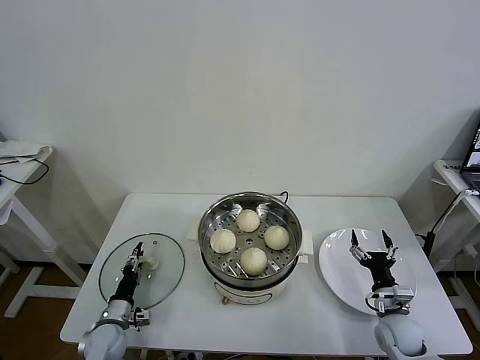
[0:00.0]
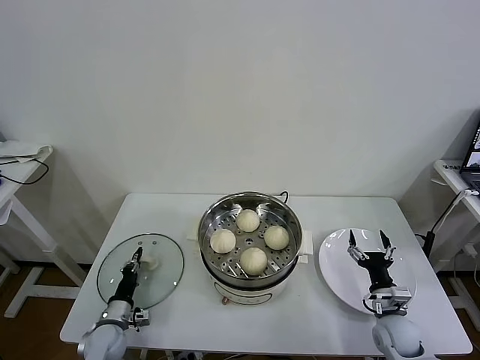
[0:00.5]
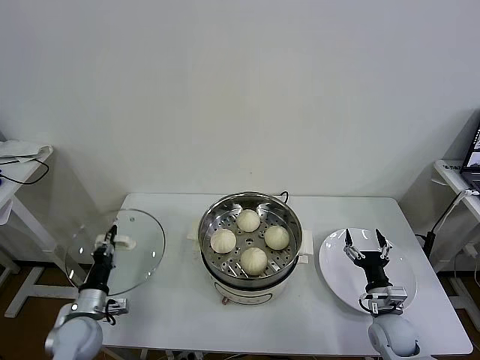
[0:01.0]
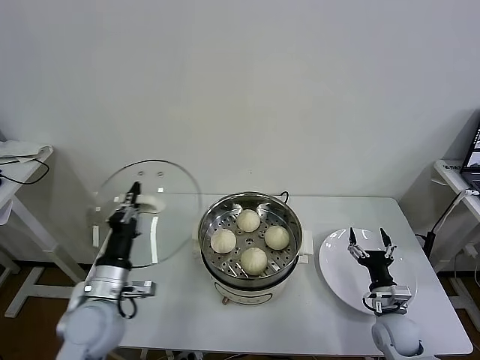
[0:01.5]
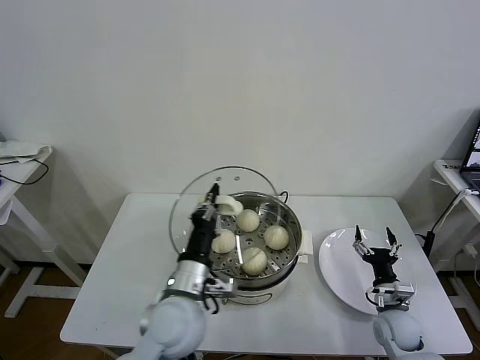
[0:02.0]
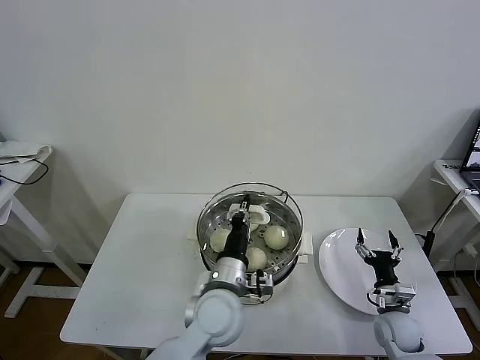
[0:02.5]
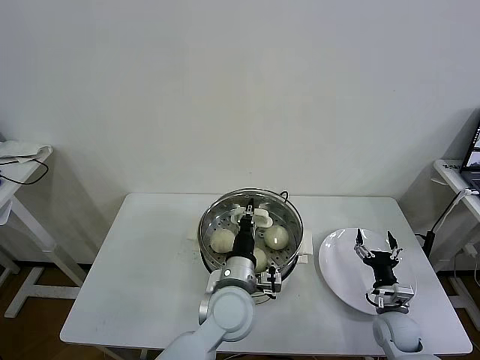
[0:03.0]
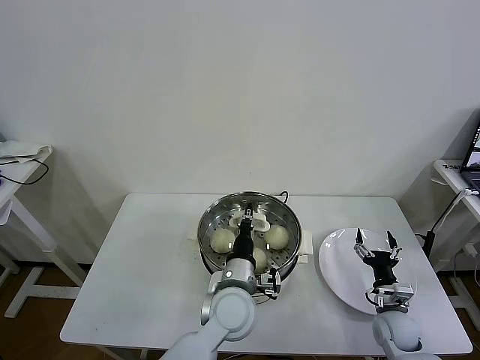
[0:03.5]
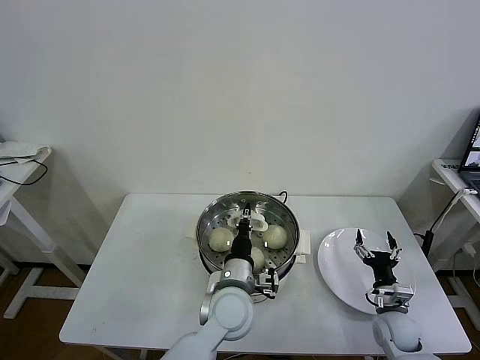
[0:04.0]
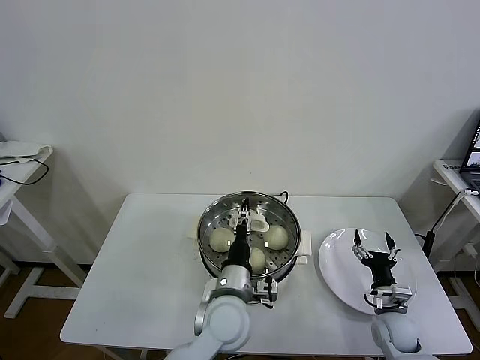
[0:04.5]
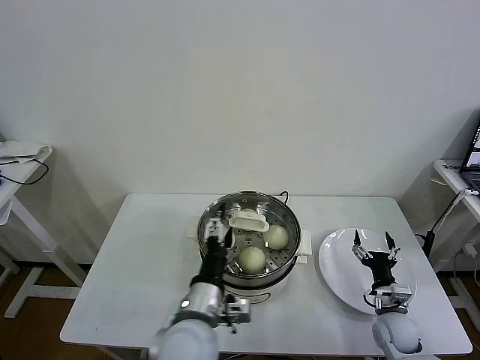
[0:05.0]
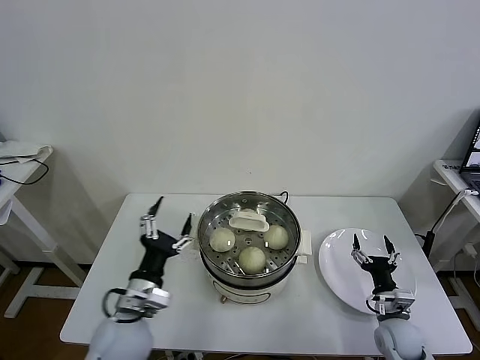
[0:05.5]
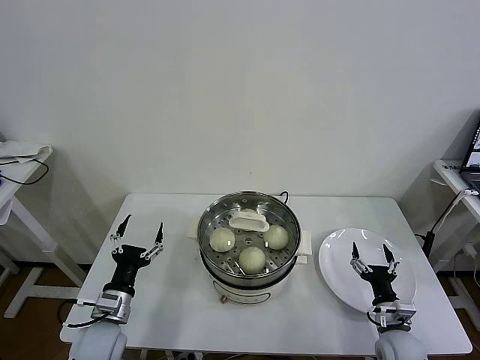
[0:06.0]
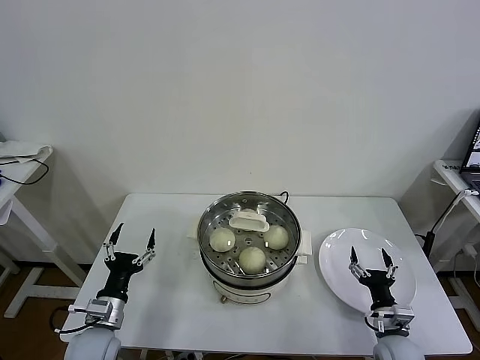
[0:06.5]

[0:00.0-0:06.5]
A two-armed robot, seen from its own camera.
Task of the whole recording: take steamed baozi put them in steamer then cover it.
Step, 0:01.0 to 0:04.5: Place the pot lid on the steamer with left gripper.
0:00.0 to 0:02.0: The left gripper shifts some 30 cm upward and to the right, and closes its fingers.
0:02.0 to 0:04.5: The left gripper heads to the right, covering approximately 10 cm, and opens.
0:04.5 to 0:06.5: The left gripper moves to the left, approximately 30 cm, and opens up, while the right gripper shifts some 5 cm backward.

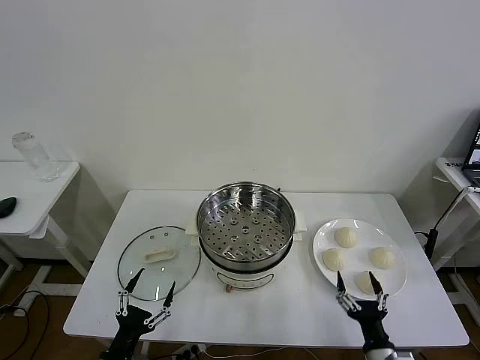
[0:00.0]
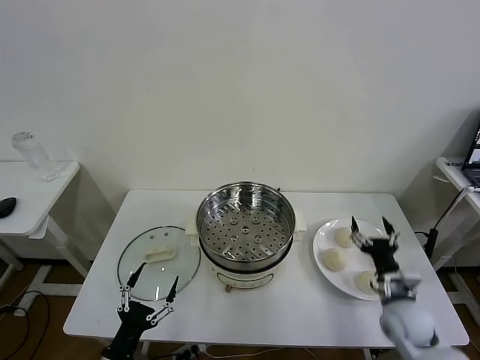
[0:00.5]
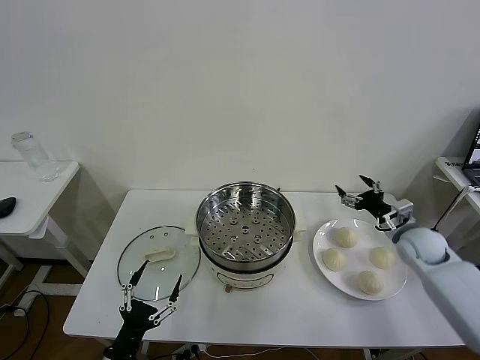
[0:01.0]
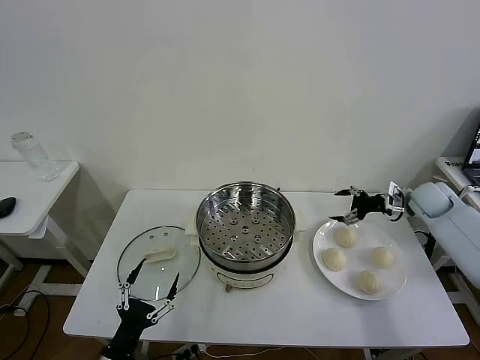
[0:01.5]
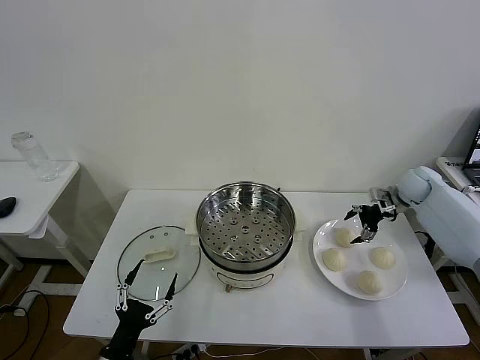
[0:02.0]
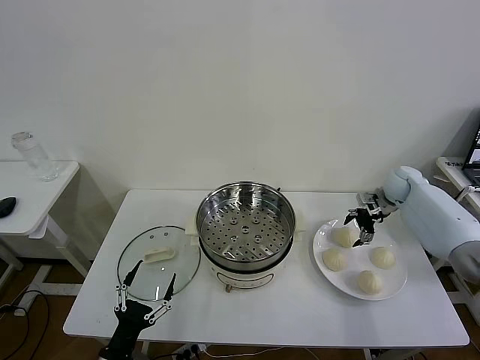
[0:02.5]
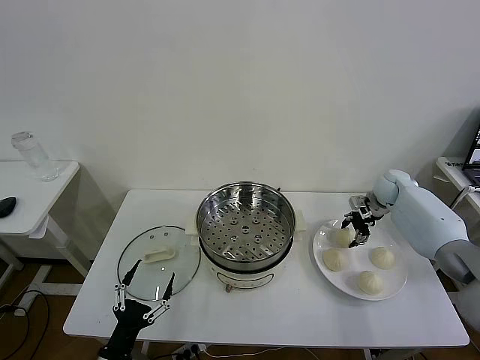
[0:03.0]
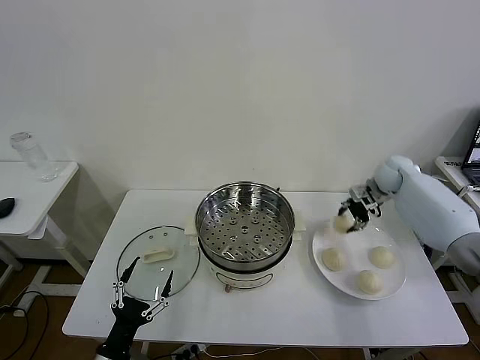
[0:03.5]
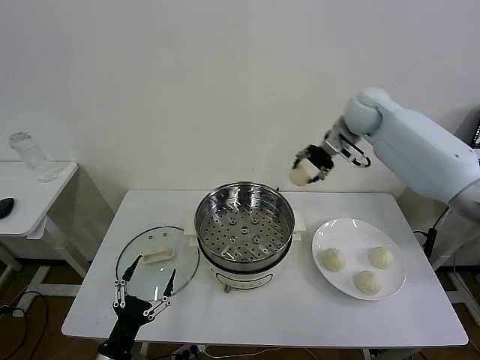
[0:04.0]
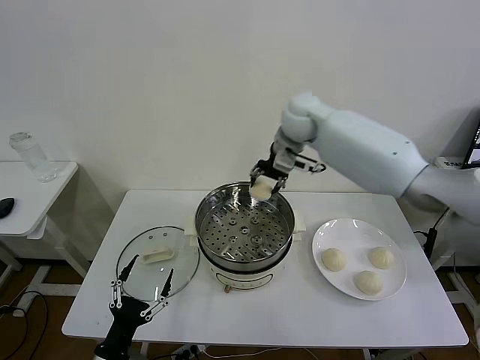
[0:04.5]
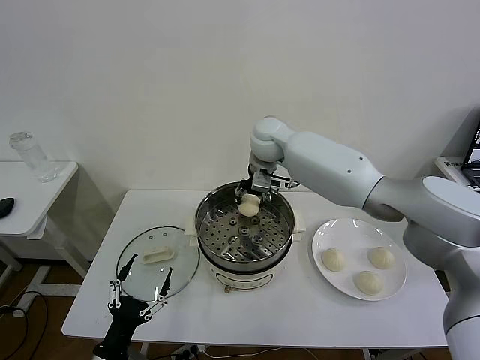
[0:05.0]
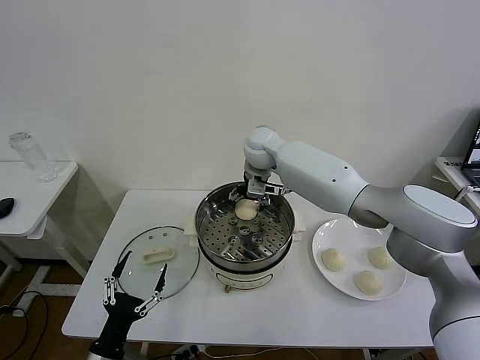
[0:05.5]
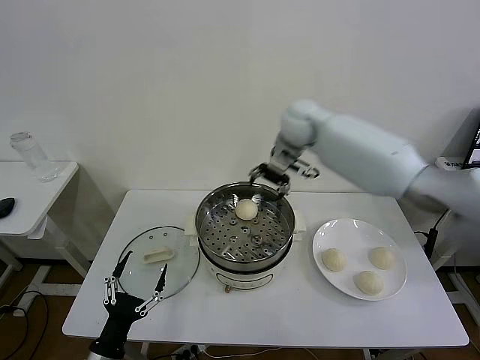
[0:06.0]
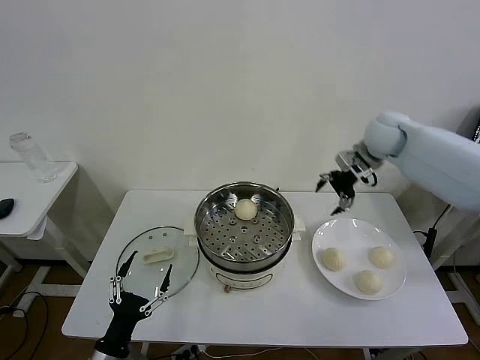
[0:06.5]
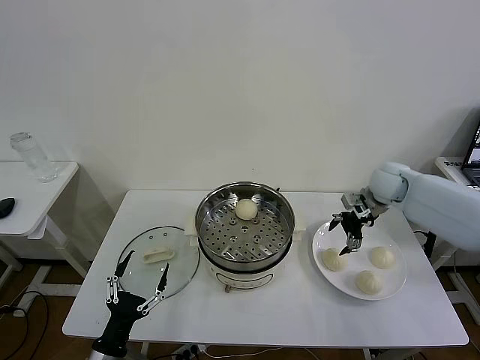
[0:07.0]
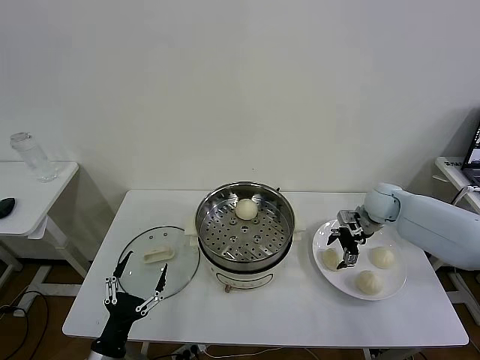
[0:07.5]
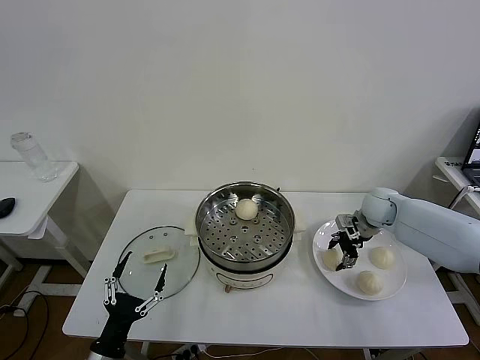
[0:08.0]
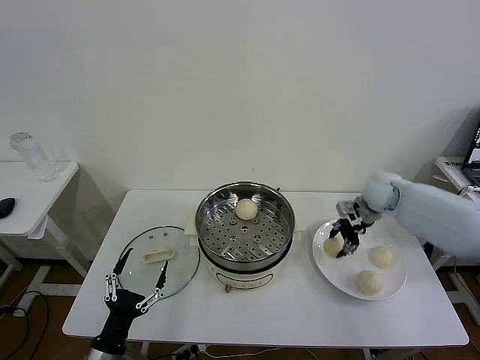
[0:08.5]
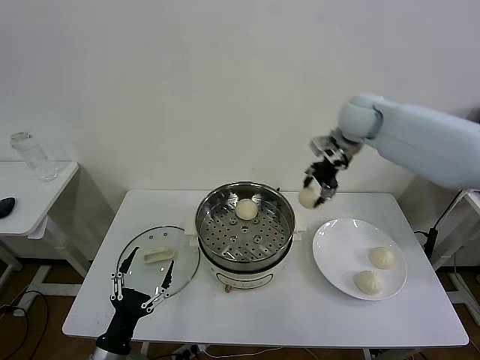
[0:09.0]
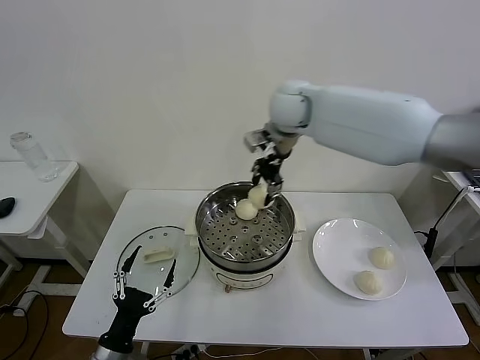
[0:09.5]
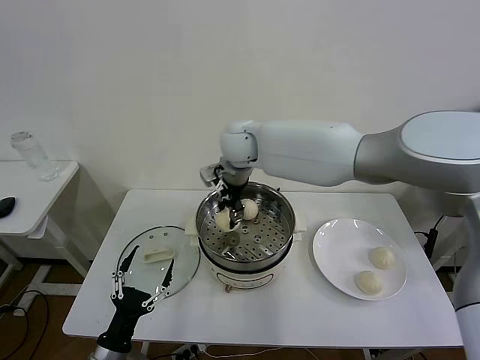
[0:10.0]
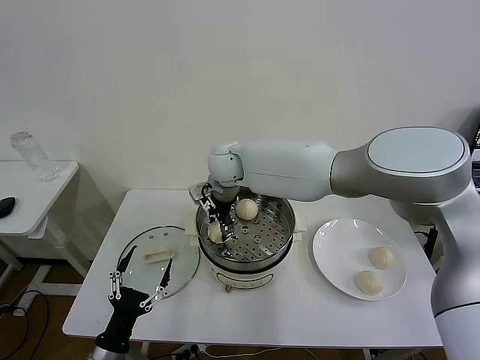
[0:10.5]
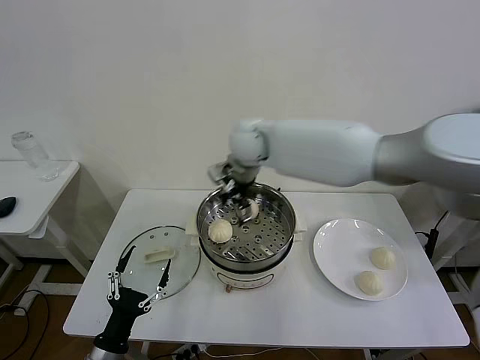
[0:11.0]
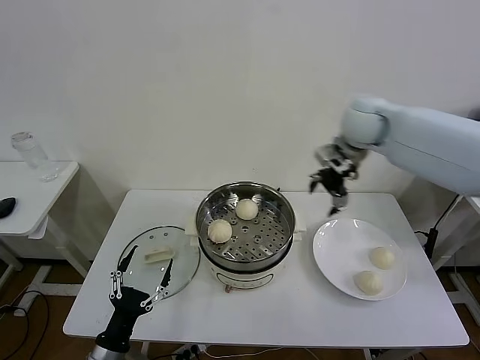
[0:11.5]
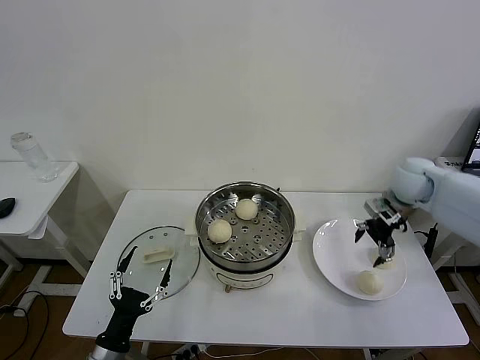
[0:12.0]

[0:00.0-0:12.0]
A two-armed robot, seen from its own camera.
Task of the whole recording: take steamed baozi put them in steamer then cover it.
Step, 0:00.0 to 0:03.0: Grasp the baozi in the plate with right gripper.
Step, 0:03.5 to 0:05.5: Place the baozi on the steamer with right gripper.
Step, 0:06.0 to 0:08.0: Grasp the baozi in the plate with right gripper.
Step, 0:08.5 to 0:10.5: Place the baozi on the steamer with right gripper.
0:02.0 to 0:04.0: The right gripper heads to the left and upward, covering roughly 30 cm, and closes its fingers.
0:04.0 to 0:06.0: The right gripper reaches roughly 15 cm to the left, then returns, and opens up.
0:06.0 to 0:08.0: The right gripper heads downward and to the right, covering roughly 30 cm, and closes.
0:08.0 to 0:10.0: The right gripper shifts about 40 cm to the left and upward, and closes its fingers.
0:10.0 to 0:12.0: The right gripper is displaced to the right by approximately 40 cm, and opens.

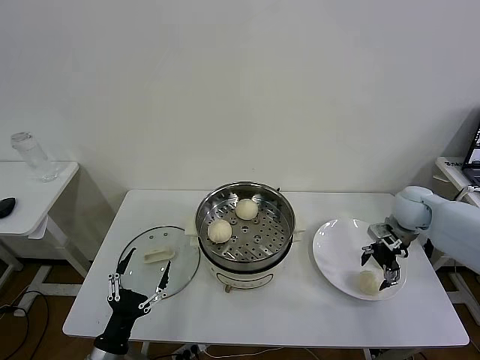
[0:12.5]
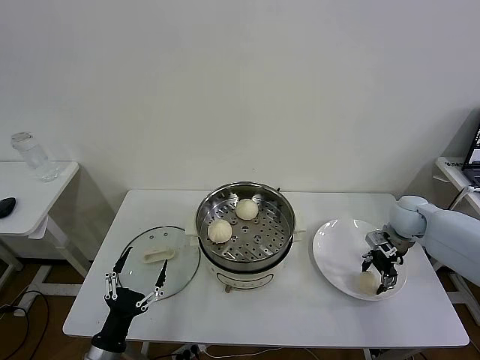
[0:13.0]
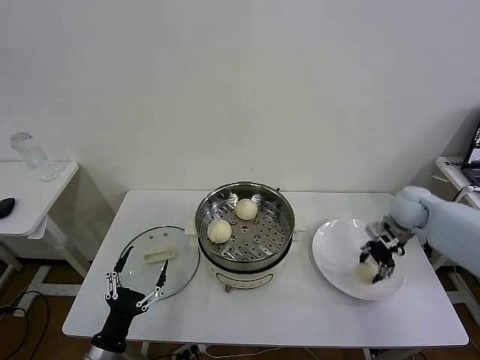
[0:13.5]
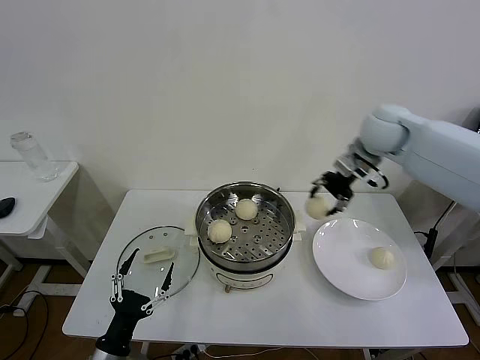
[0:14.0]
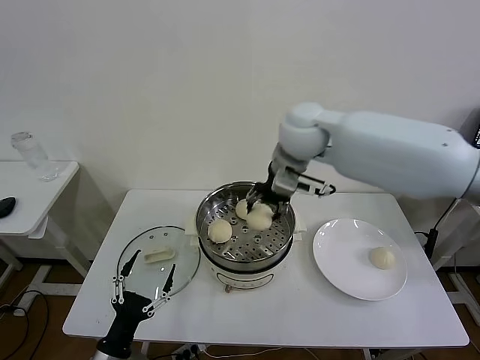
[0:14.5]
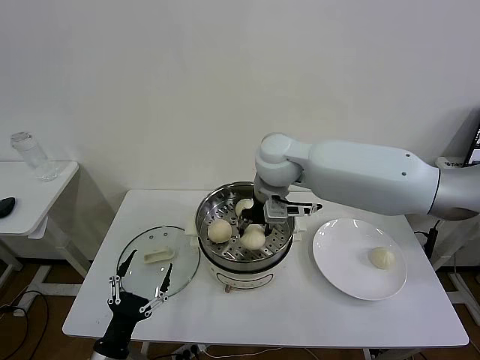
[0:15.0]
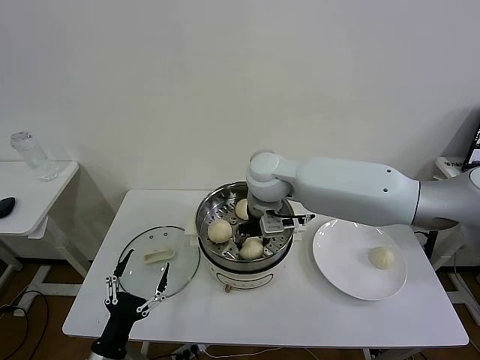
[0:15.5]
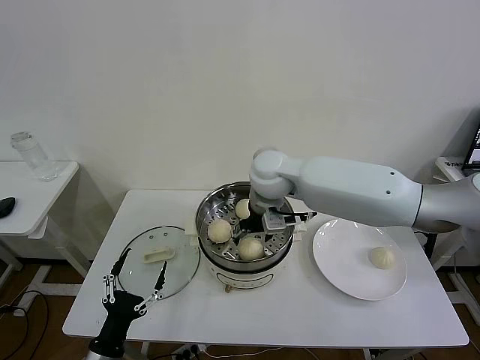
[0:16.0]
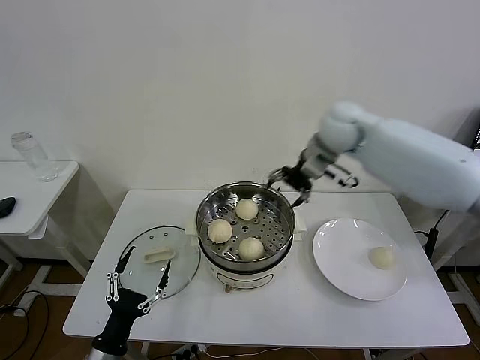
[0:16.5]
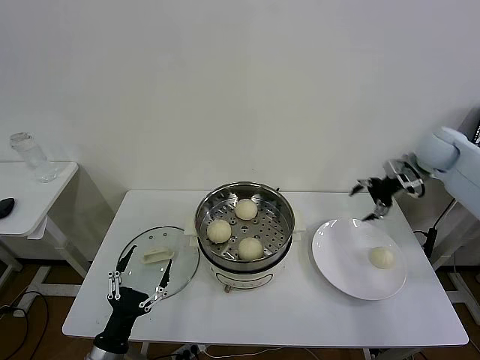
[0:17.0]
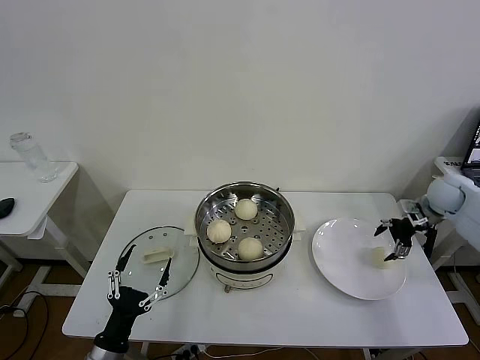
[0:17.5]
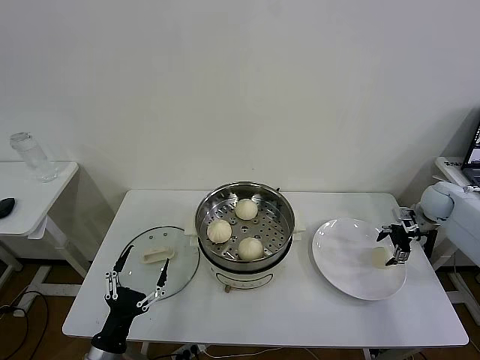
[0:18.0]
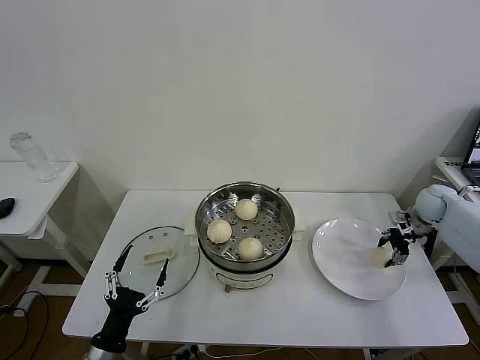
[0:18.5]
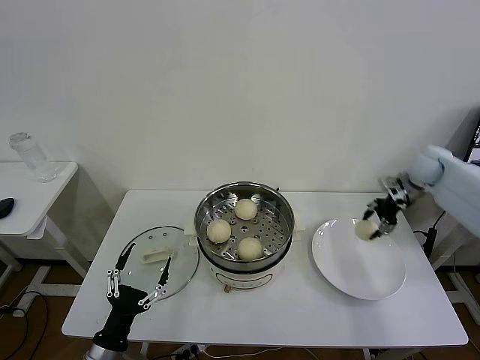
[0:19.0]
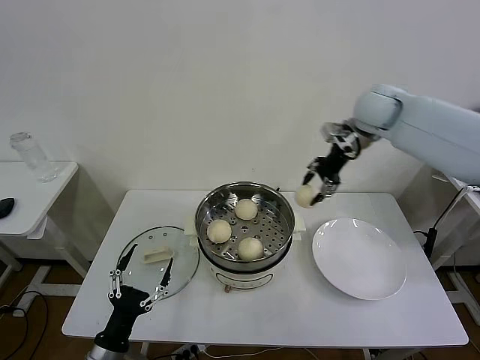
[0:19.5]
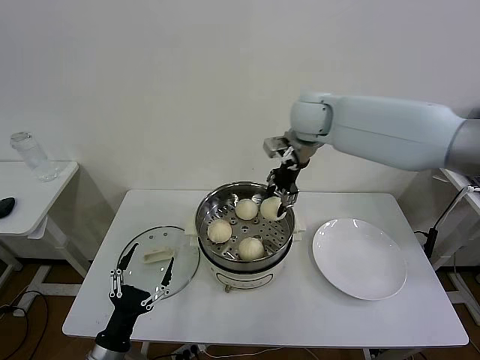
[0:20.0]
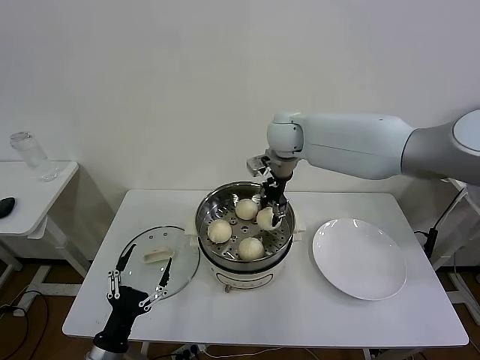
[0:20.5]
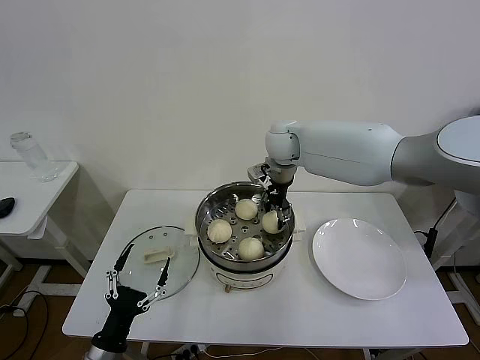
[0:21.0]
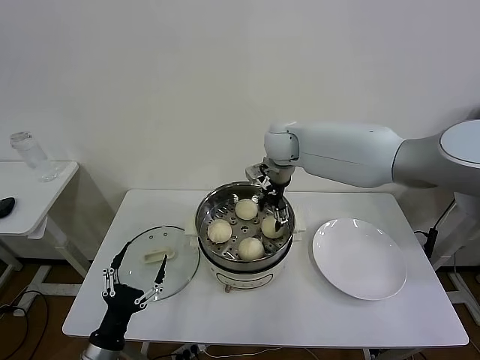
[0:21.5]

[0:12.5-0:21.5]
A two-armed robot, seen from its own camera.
Task of the whole recording: take steamed baozi put them in steamer then cover it.
Step, 0:13.5 to 0:15.5: Place the baozi on the steamer with right gripper.
Step, 0:16.5 to 0:18.5: Grasp the baozi in the plate with right gripper.
Step, 0:19.0 to 0:21.0: Place the baozi on the steamer with right gripper.
0:12.5 to 0:14.5: The right gripper is displaced to the left and upward by about 35 cm, and closes up.
0:14.5 to 0:17.0: The right gripper shifts approximately 35 cm to the right, and opens up.
0:17.0 to 0:19.5: The right gripper shifts some 25 cm to the left and upward, and closes.
0:19.5 to 0:21.5: The right gripper travels to the left and downward by about 20 cm, and opens its fingers.
